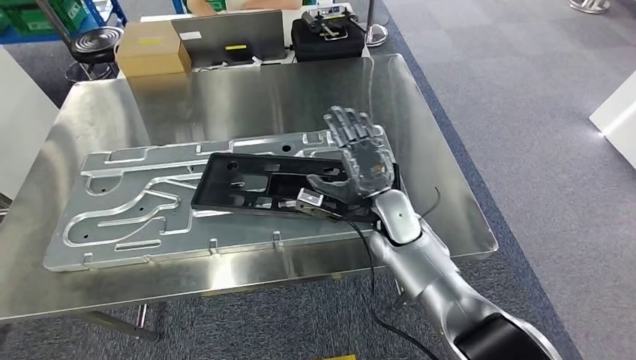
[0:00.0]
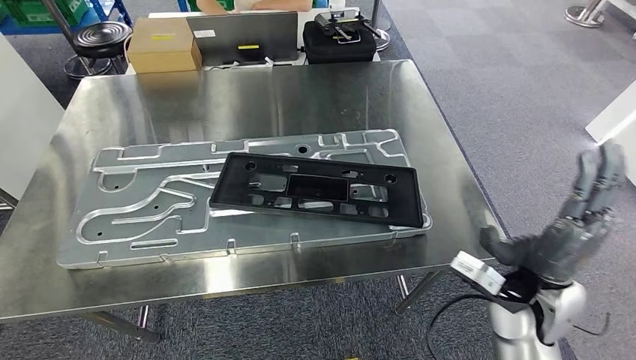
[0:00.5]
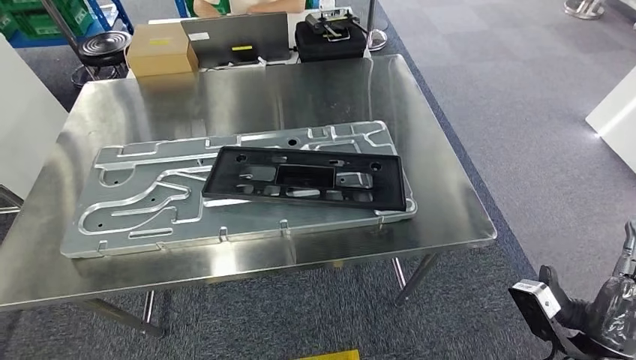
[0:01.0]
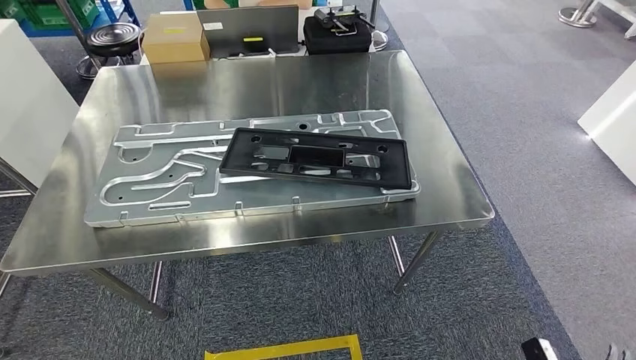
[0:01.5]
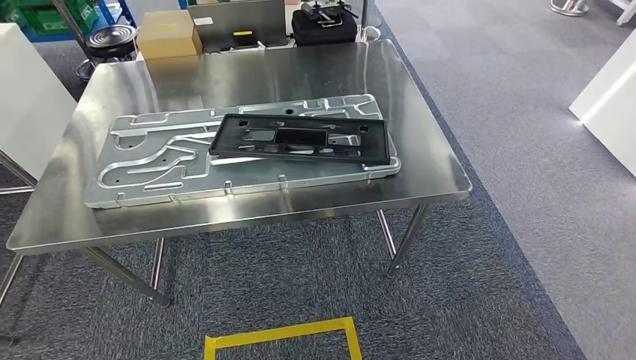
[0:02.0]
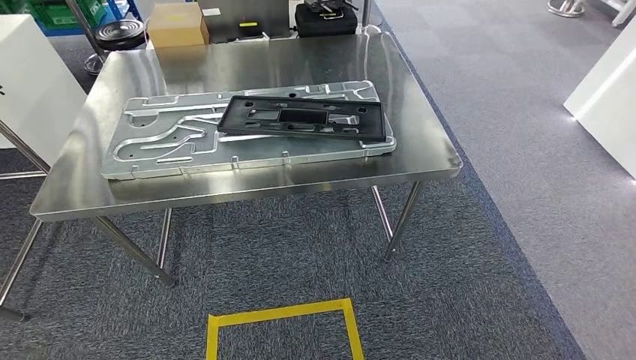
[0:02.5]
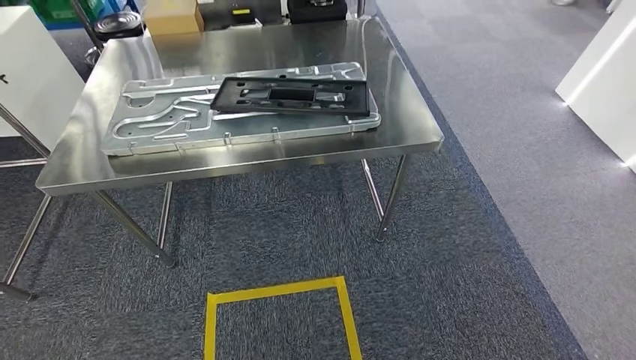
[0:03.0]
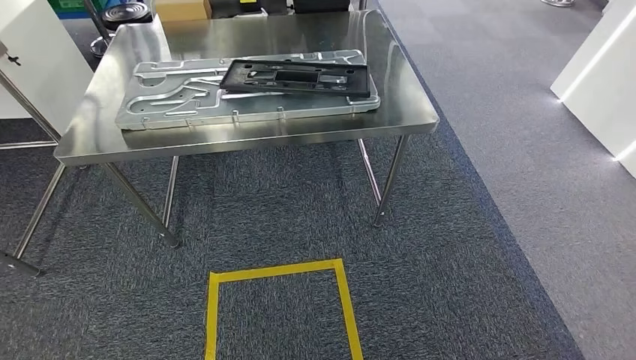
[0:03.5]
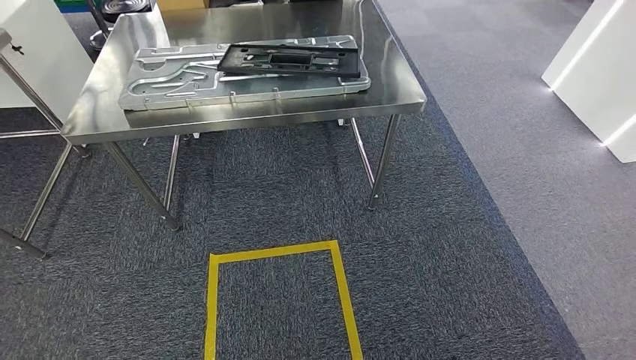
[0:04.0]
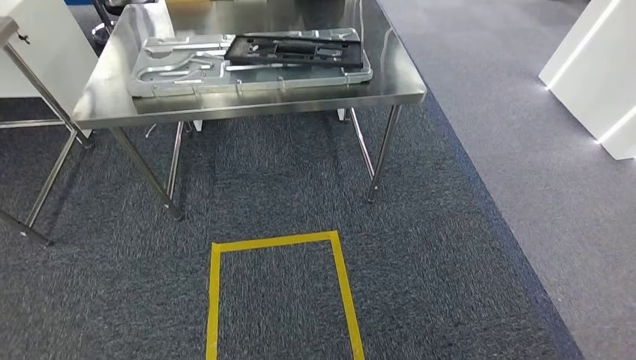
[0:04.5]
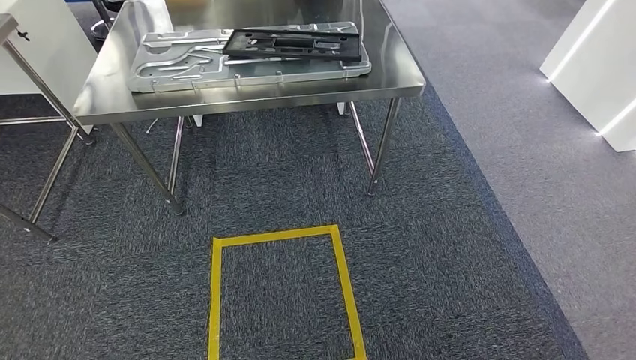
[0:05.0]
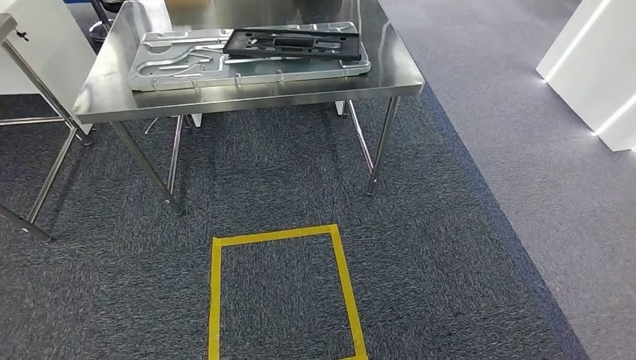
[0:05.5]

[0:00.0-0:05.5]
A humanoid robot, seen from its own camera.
Step, 0:02.5 to 0:05.5: Move to the initial position of the shelf.
